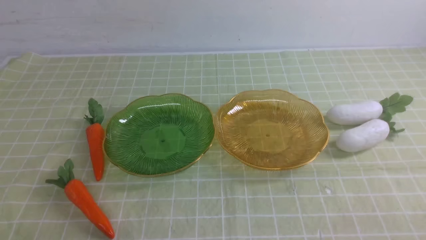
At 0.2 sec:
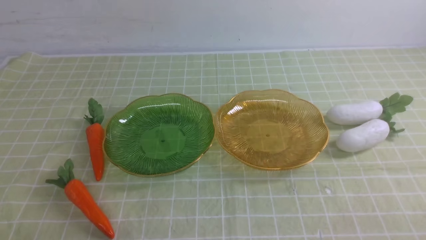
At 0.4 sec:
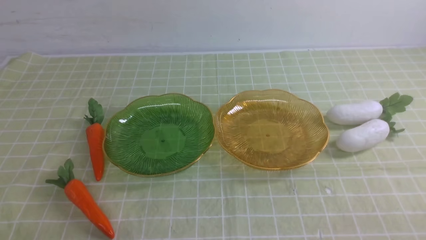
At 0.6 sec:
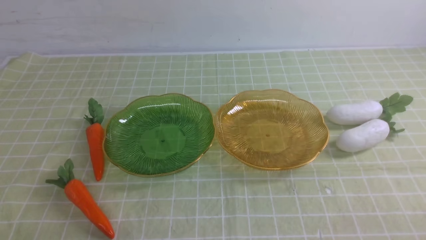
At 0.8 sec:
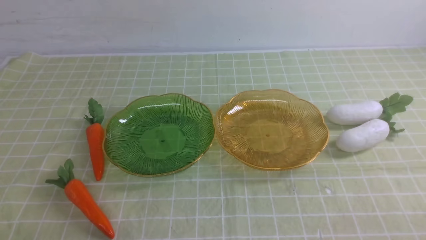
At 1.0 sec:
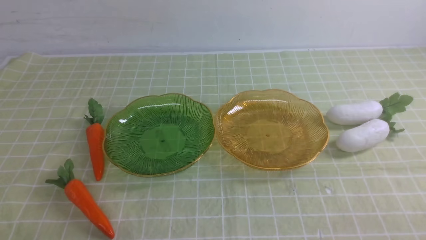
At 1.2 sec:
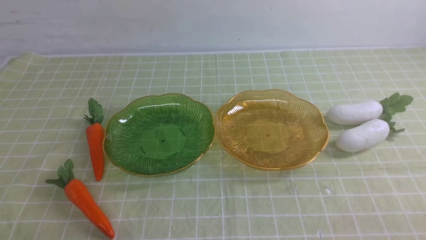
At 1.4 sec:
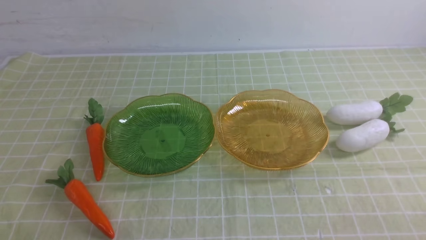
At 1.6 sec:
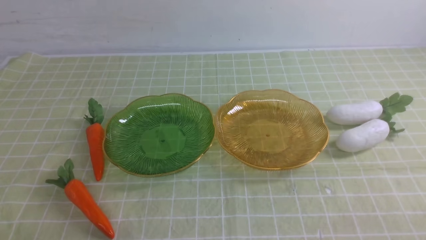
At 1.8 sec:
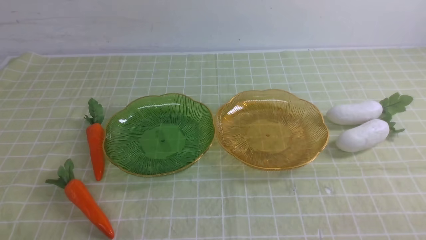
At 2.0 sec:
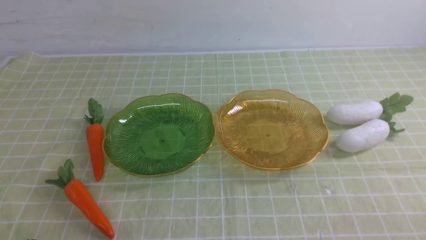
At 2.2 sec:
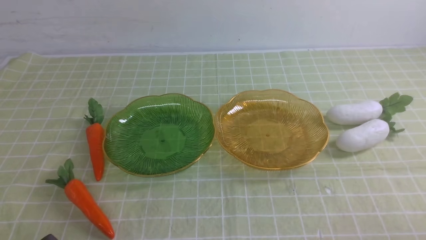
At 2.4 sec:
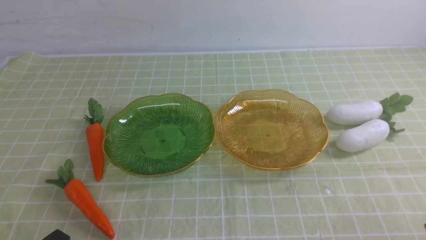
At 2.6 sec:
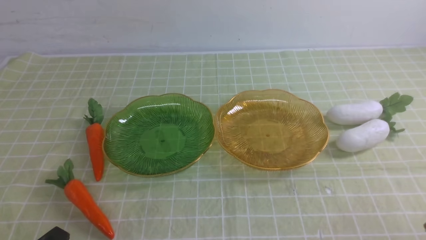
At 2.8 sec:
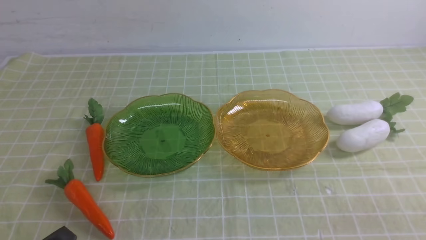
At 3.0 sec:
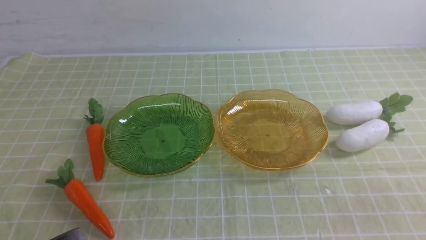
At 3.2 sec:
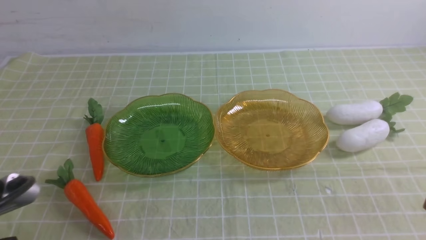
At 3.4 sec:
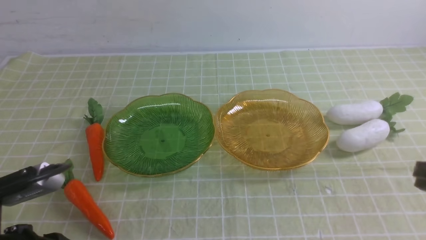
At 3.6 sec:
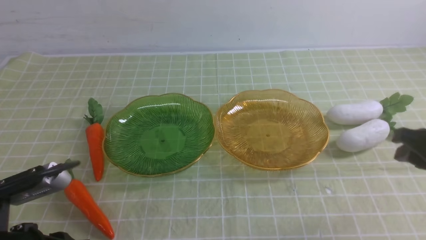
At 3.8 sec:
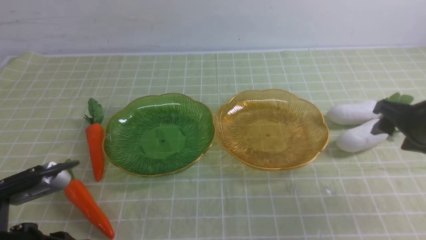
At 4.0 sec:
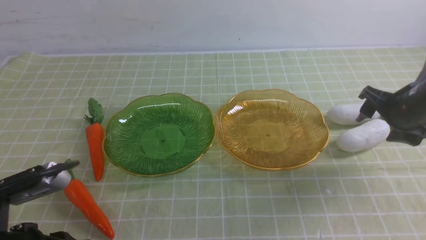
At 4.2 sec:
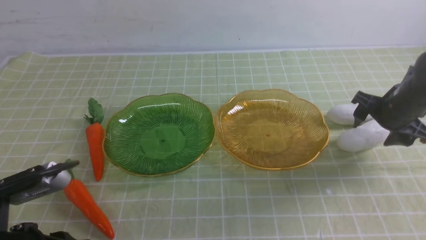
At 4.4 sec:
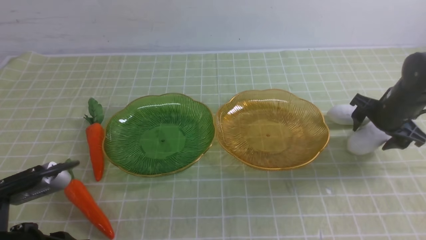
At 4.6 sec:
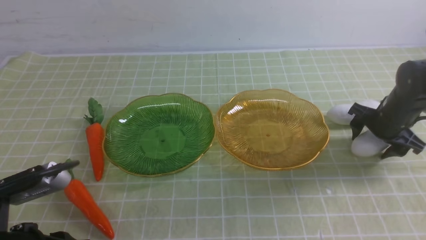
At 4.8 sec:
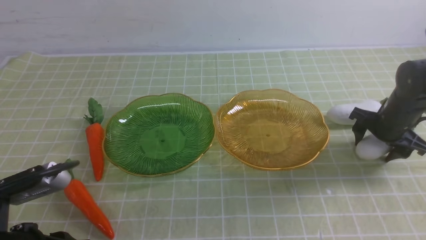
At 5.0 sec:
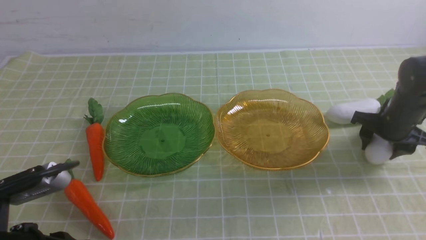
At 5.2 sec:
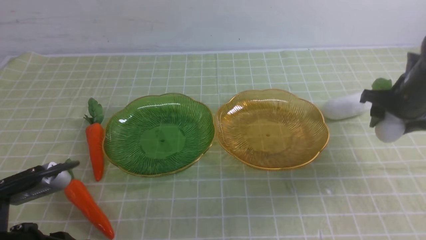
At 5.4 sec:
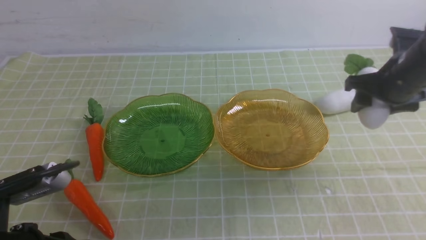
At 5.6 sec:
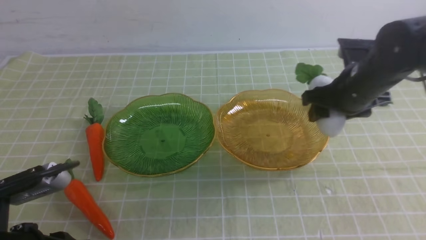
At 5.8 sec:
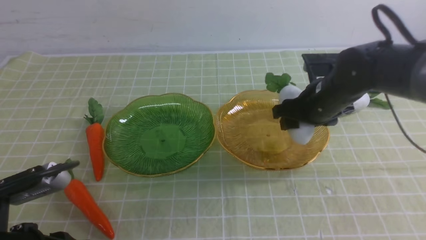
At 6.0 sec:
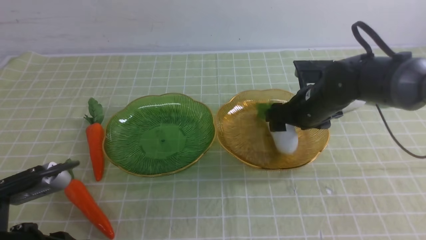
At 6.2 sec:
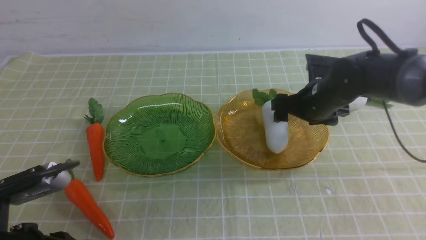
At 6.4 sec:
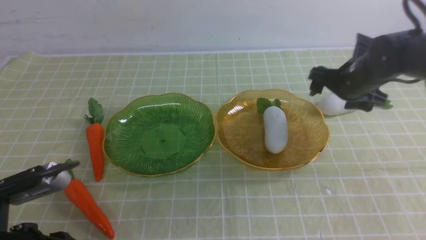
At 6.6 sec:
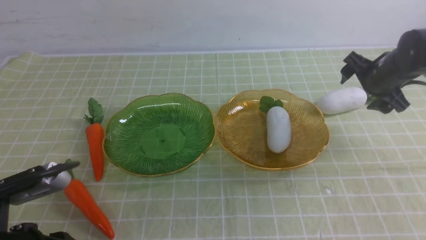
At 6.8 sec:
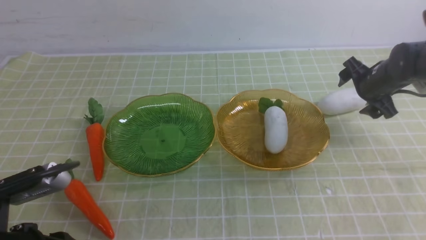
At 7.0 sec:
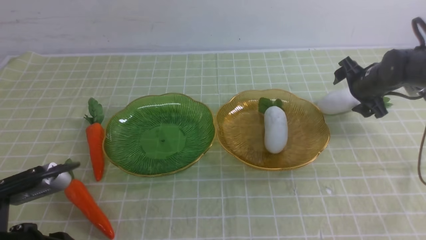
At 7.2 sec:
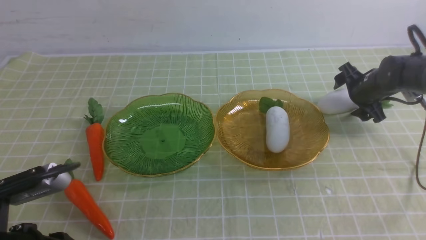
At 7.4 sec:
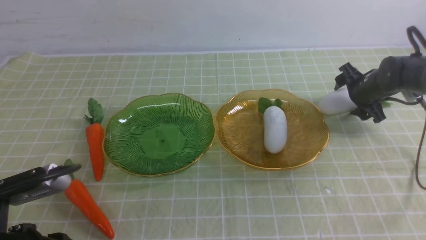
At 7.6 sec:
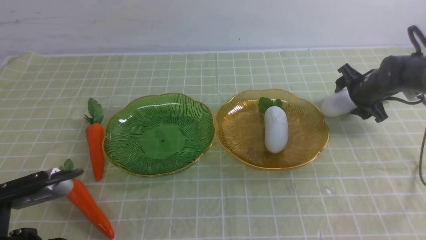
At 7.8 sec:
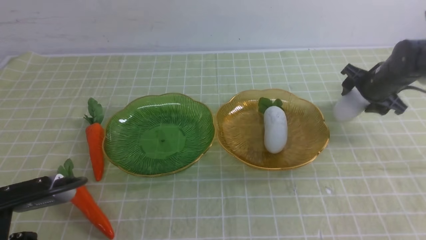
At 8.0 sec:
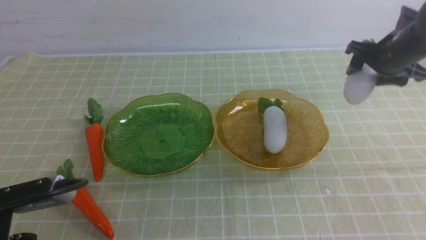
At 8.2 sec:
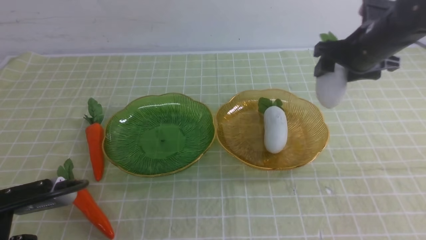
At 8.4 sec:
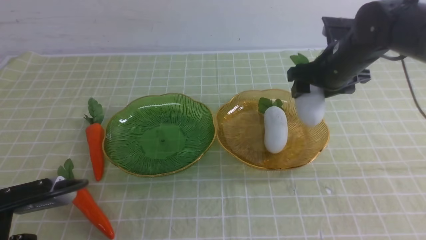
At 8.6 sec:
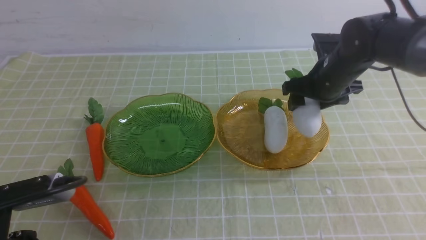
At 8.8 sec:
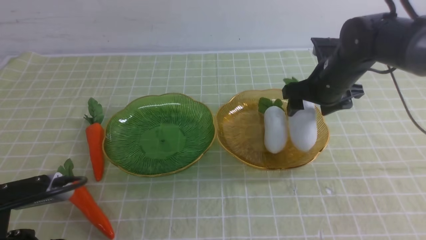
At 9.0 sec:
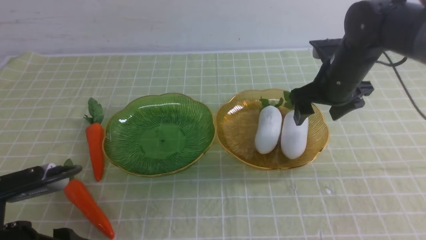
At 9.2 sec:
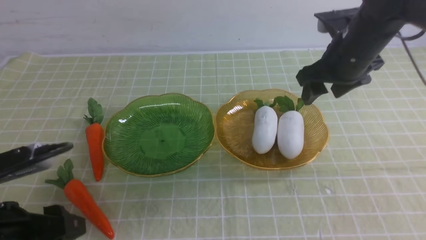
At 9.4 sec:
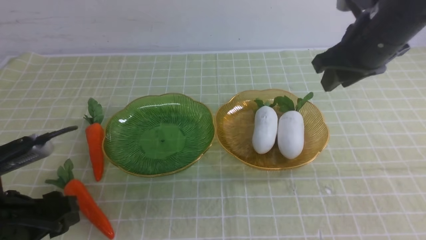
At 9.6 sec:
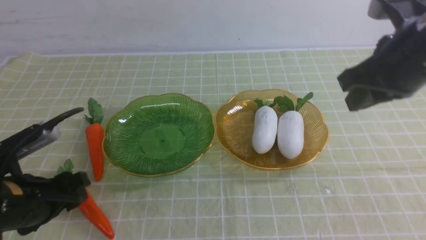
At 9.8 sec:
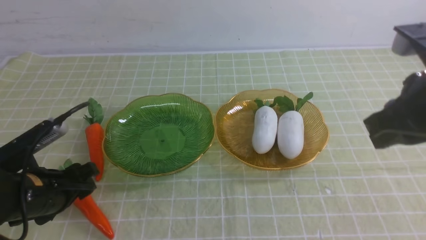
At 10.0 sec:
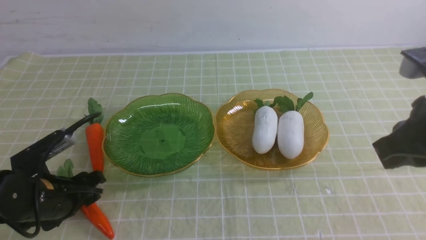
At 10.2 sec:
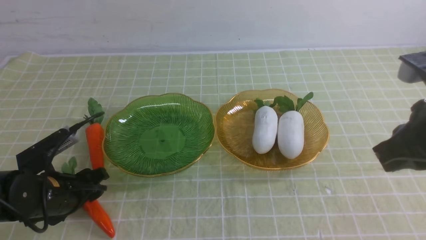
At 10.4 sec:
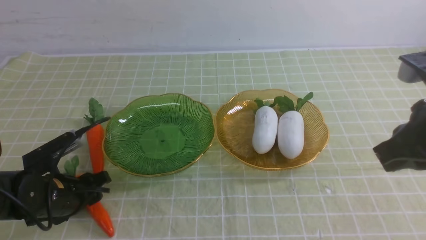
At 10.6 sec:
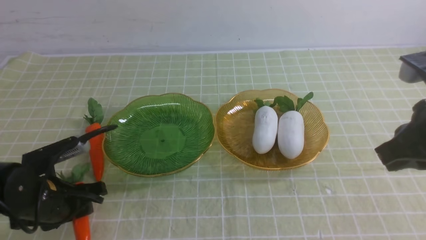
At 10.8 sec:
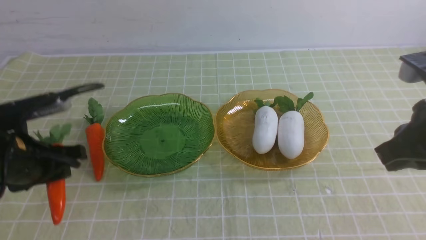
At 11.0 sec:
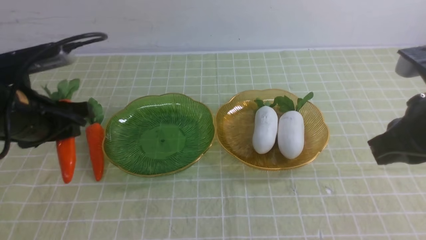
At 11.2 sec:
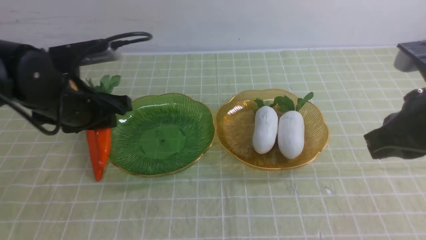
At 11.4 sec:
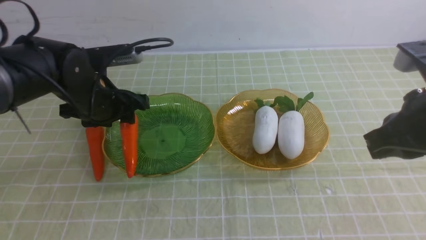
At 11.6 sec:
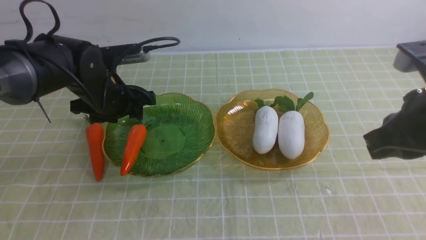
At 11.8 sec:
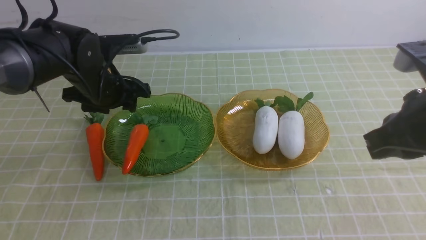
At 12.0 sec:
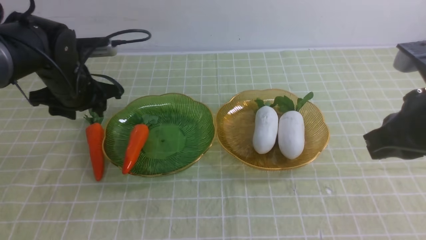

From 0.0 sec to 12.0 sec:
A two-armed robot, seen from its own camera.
Step, from 0.0 sec to 10.2 sec: use the right arm to grab a radish and put it into the right plate.
From 0.0 sec to 1.6 sec: Both grippers stay about where they are.
From 3.0 sec to 4.4 sec: The left gripper moves forward, approximately 5 cm; the right gripper heads forward, covering about 35 cm, and opens.
From 4.4 sec to 6.0 sec: The right gripper travels to the left by roughly 15 cm.
From 6.0 sec to 7.6 sec: The right gripper goes roughly 15 cm to the right and forward.
From 7.6 sec to 9.0 sec: The right gripper shifts approximately 20 cm to the left, upward and backward, while the left gripper opens.
From 9.0 sec to 10.4 sec: The left gripper heads forward and downward, covering approximately 15 cm; the right gripper heads backward, covering about 20 cm, and closes its fingers.
From 10.4 sec to 12.0 sec: The left gripper goes roughly 20 cm forward and upward.

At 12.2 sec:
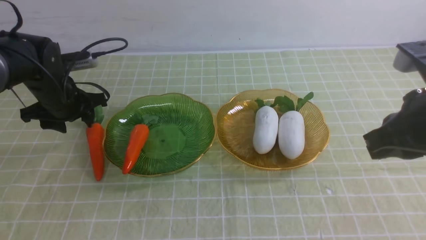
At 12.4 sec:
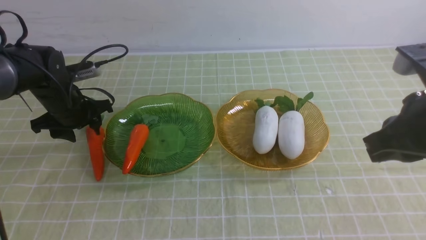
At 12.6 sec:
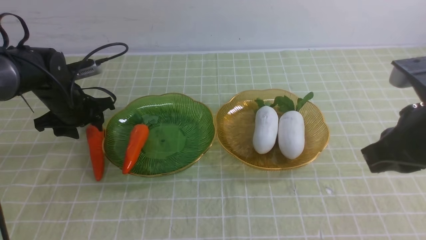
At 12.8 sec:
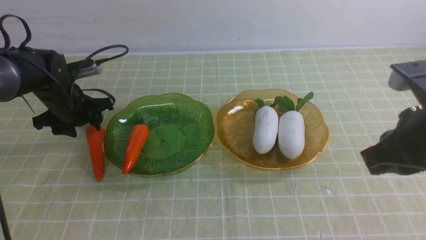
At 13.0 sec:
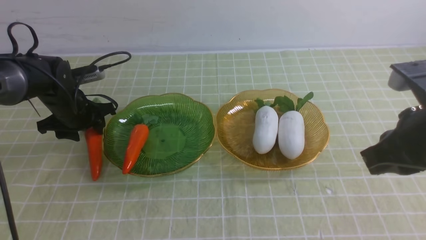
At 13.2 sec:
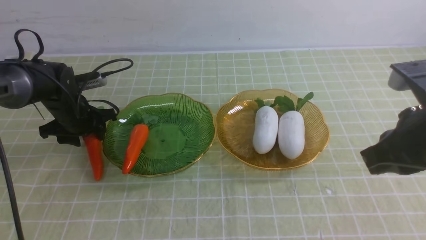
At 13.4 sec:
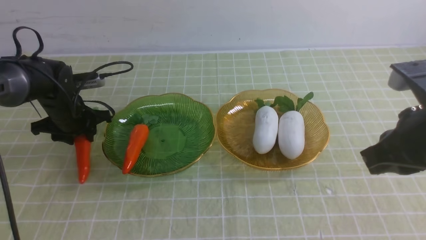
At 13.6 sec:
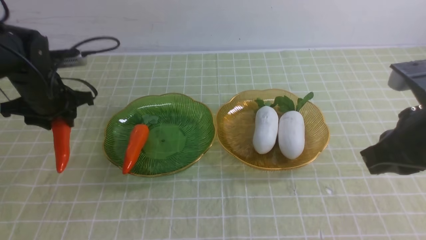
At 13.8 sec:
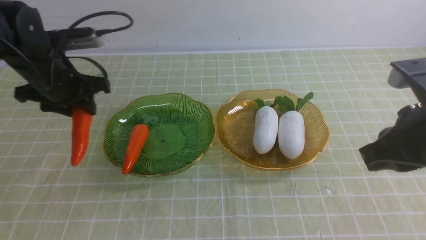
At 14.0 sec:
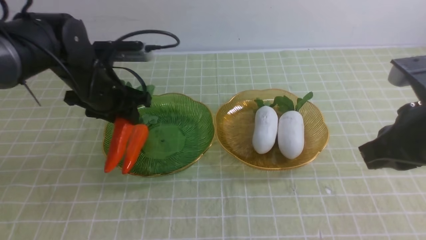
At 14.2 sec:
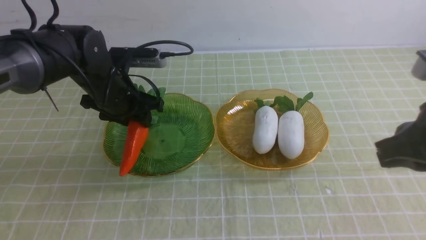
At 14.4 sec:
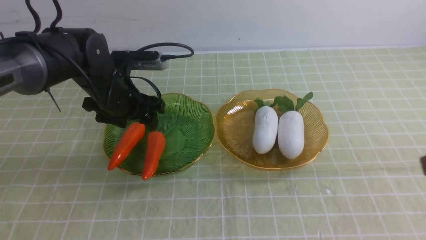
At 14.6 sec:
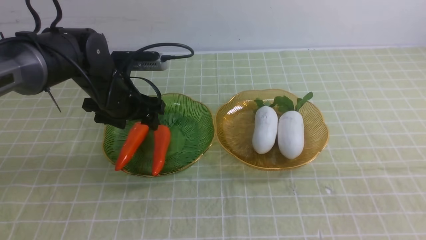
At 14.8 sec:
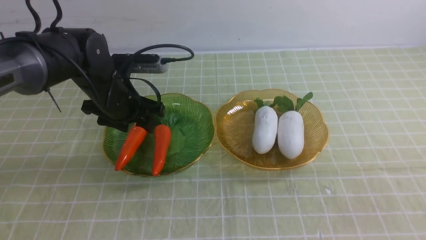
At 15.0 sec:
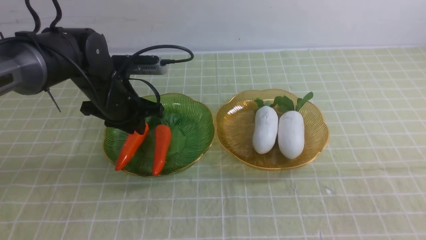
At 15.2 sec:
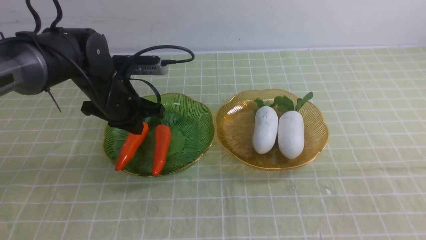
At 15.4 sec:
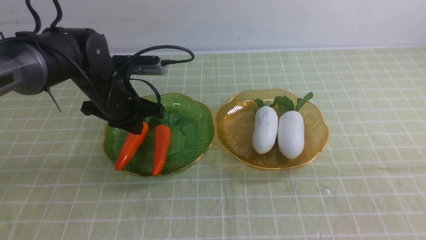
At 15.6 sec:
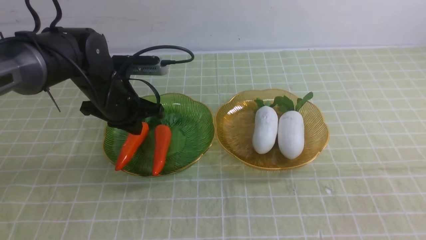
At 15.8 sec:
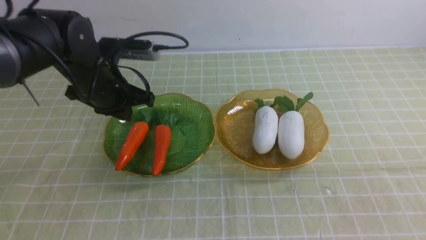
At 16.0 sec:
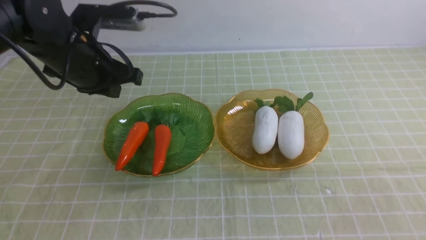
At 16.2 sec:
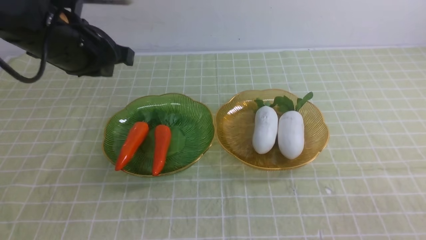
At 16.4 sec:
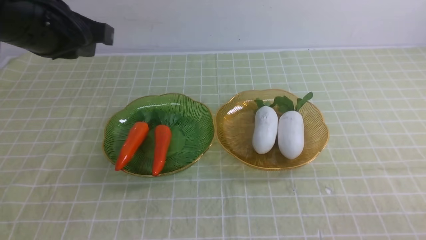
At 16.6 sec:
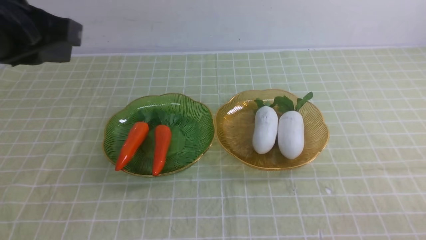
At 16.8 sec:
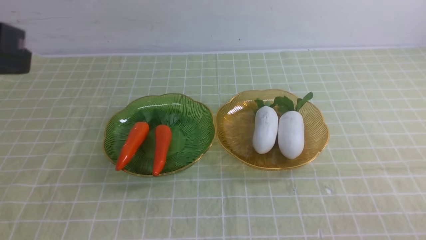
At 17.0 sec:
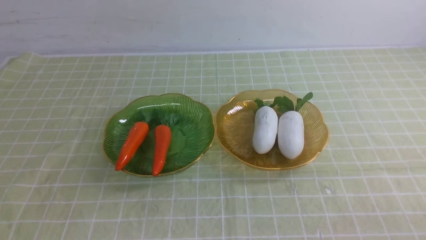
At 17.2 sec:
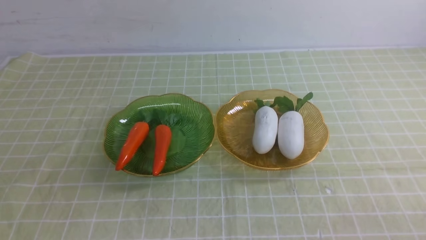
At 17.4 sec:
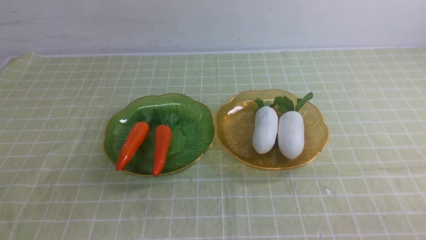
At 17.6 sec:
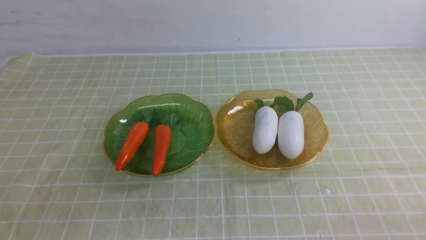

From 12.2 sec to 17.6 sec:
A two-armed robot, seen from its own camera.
Step, from 12.2 sec to 15.0 sec: use the left arm to grab a carrot and put it into the left plate.
From 12.2 sec to 13.6 sec: The grippers stay close to where they were, moving slightly.
From 13.6 sec to 15.0 sec: The left gripper goes about 10 cm to the right, and closes up. The right gripper shifts about 15 cm backward.
From 15.0 sec to 16.2 sec: The right gripper travels downward by approximately 10 cm, while the left gripper is displaced upward and backward by approximately 15 cm.
From 16.2 sec to 17.6 sec: The left gripper heads backward, covering roughly 30 cm.
